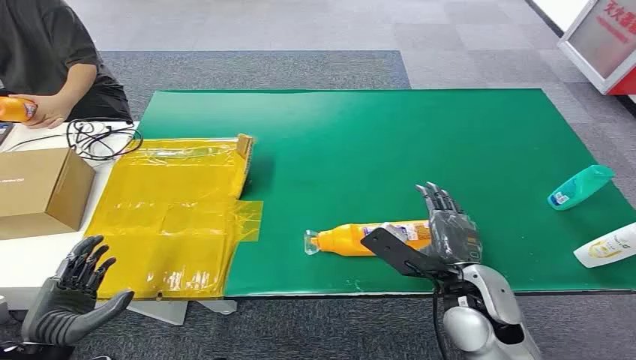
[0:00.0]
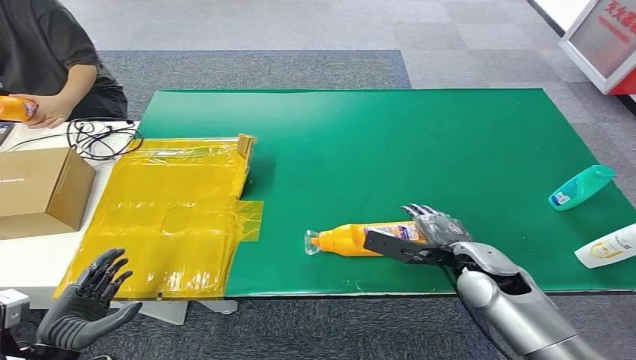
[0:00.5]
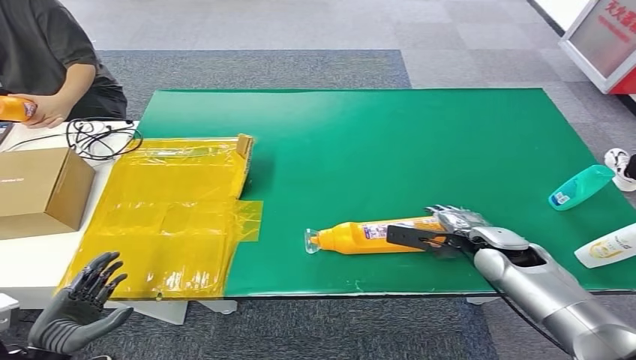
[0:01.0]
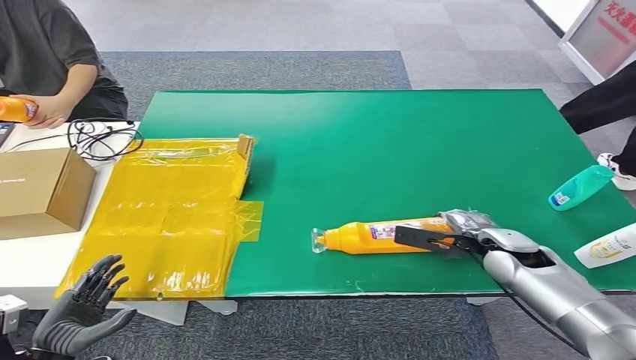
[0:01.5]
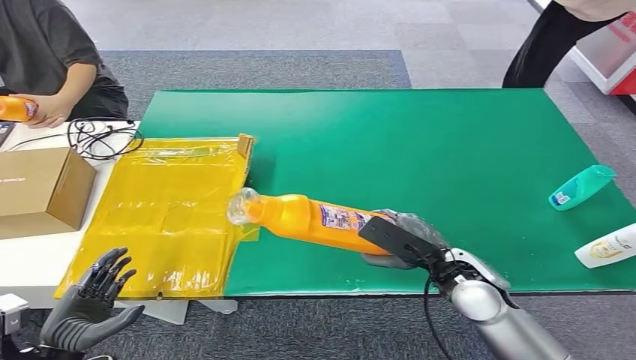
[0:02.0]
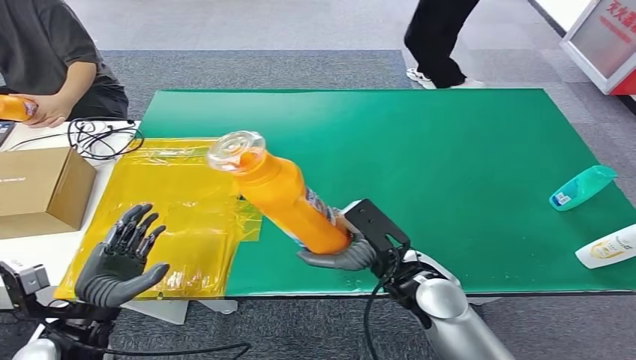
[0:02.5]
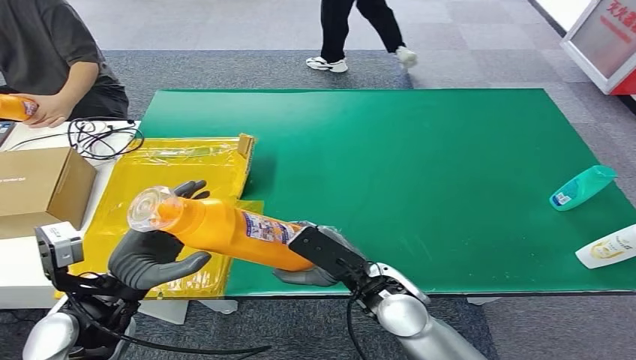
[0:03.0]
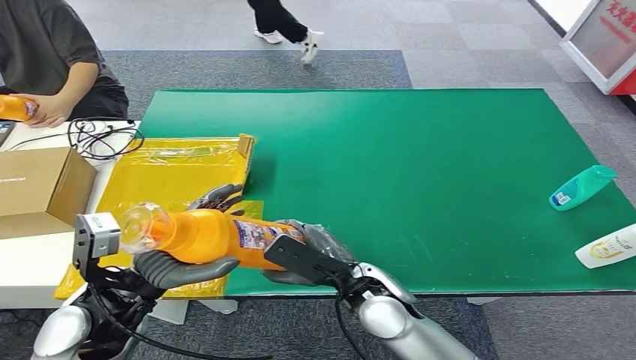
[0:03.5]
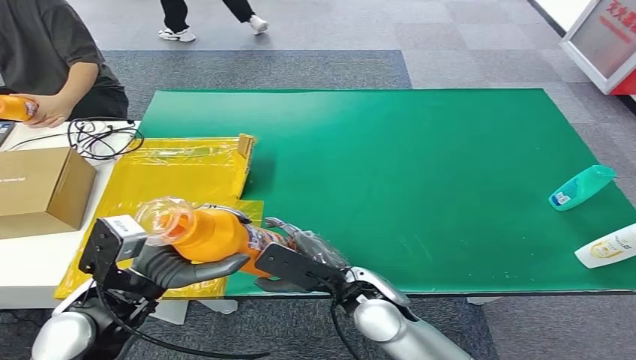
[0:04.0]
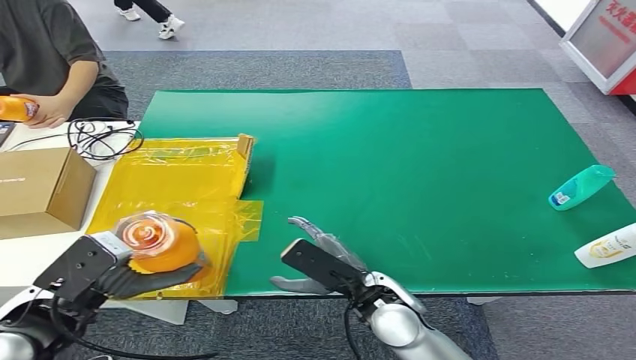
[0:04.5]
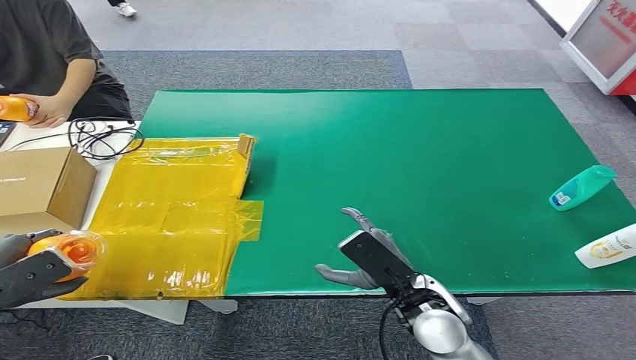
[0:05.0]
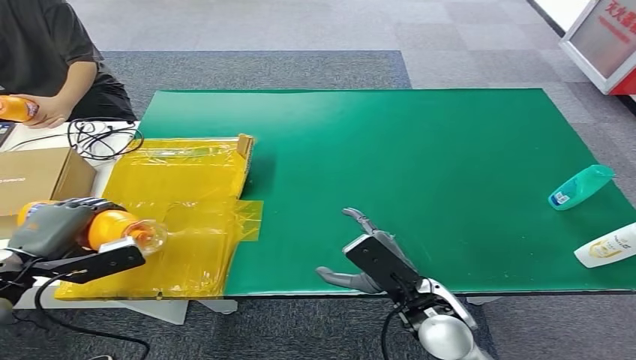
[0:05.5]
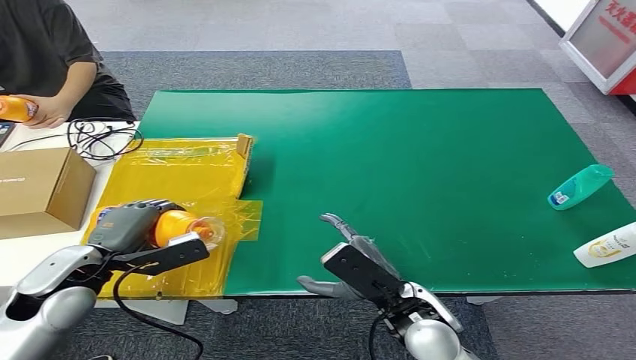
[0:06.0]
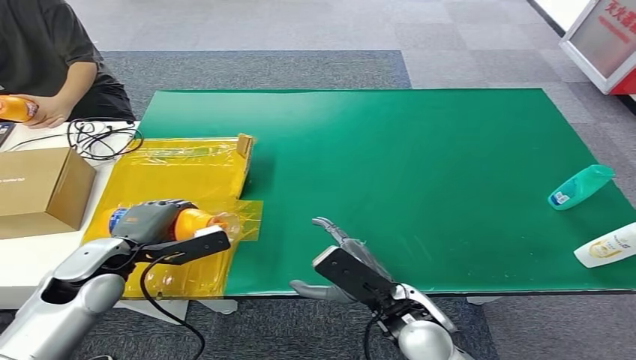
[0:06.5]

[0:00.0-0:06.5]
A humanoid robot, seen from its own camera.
Step, 0:00.0 to 0:02.0: Pick up the bottle from the table.
Step, 0:02.5 to 0:06.5: Turn the bottle to the front side.
0:04.5 to 0:06.5: The left hand travels forward and downward by roughly 10 cm, and moves some 15 cm to the left and comes back.
